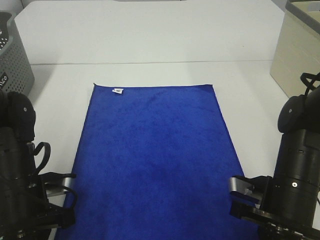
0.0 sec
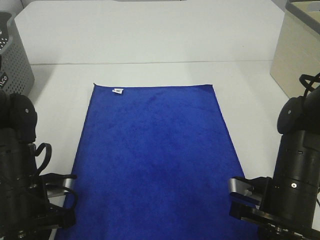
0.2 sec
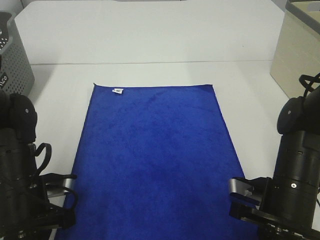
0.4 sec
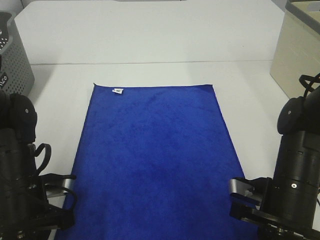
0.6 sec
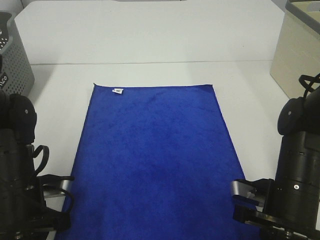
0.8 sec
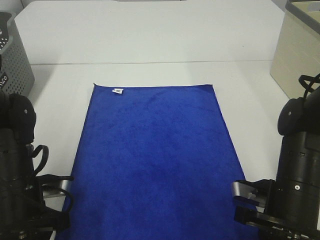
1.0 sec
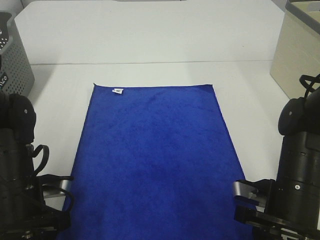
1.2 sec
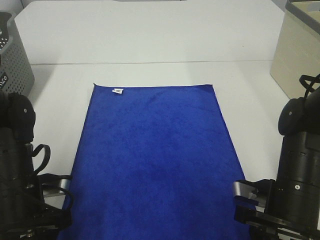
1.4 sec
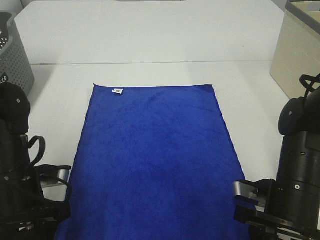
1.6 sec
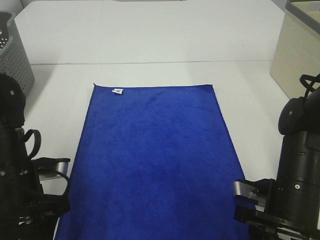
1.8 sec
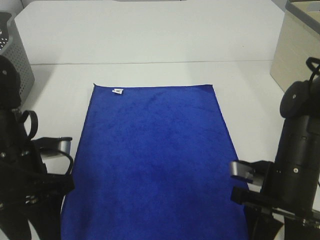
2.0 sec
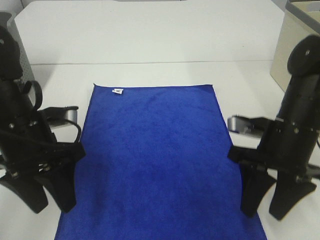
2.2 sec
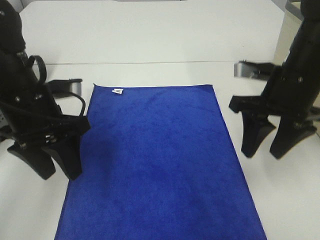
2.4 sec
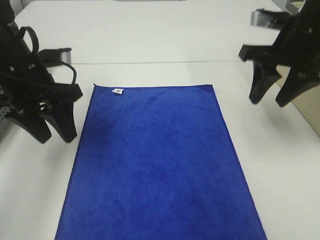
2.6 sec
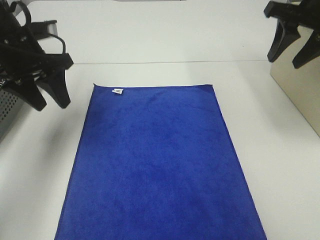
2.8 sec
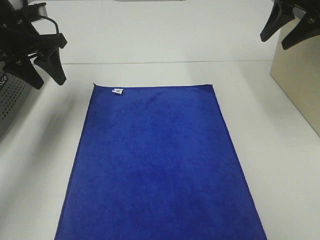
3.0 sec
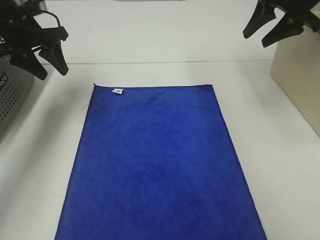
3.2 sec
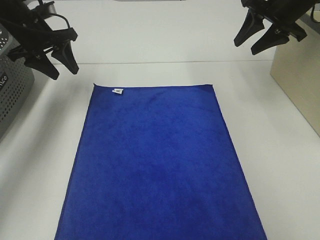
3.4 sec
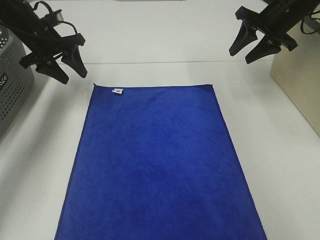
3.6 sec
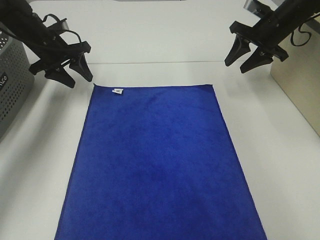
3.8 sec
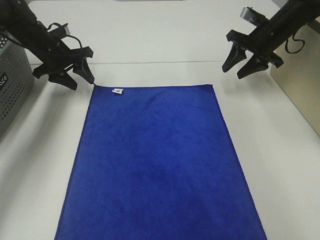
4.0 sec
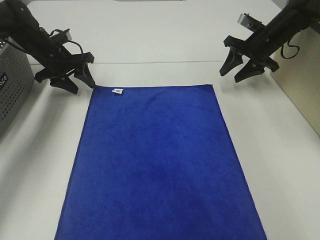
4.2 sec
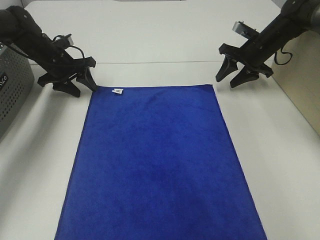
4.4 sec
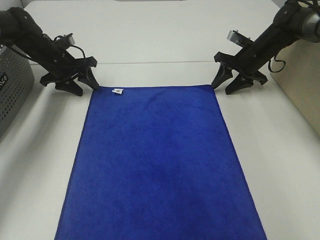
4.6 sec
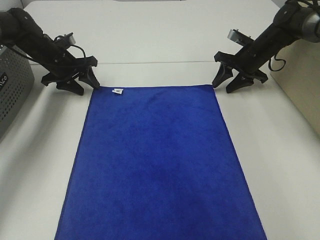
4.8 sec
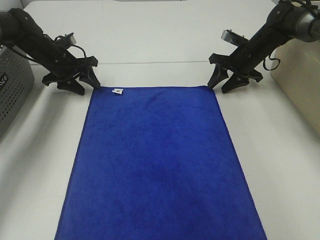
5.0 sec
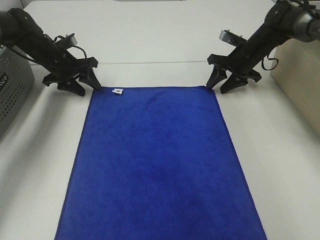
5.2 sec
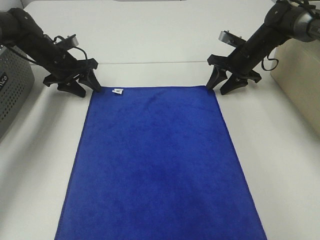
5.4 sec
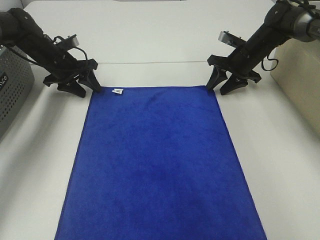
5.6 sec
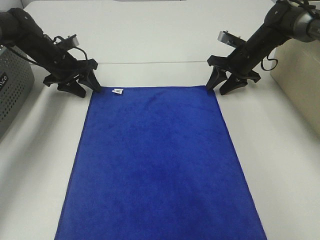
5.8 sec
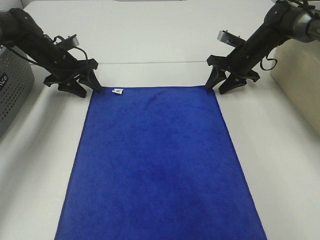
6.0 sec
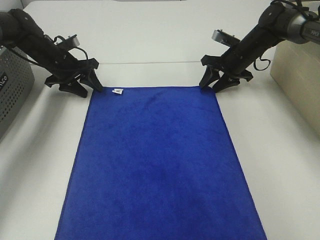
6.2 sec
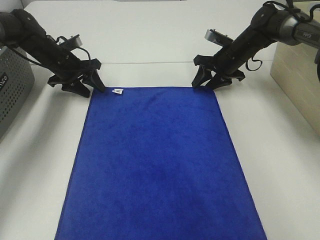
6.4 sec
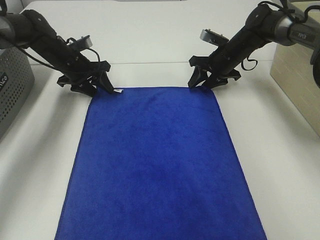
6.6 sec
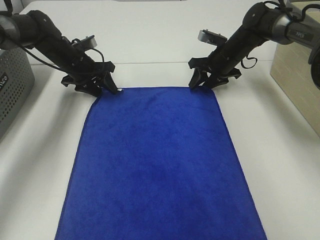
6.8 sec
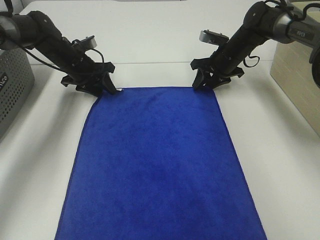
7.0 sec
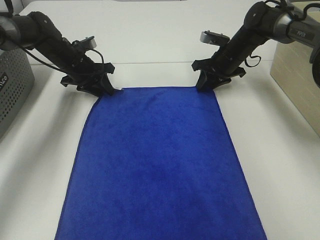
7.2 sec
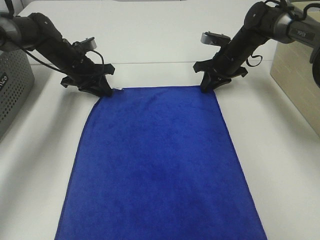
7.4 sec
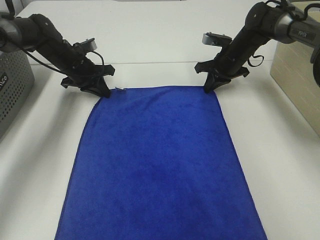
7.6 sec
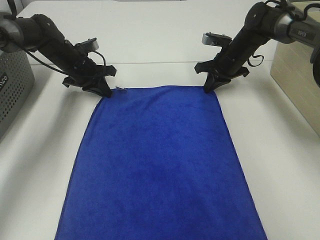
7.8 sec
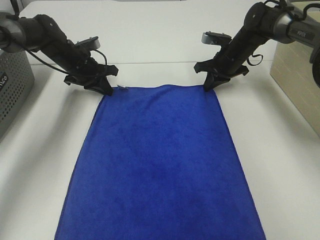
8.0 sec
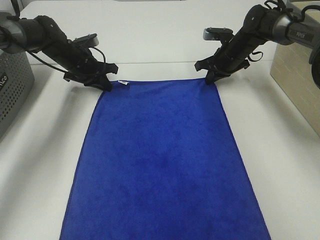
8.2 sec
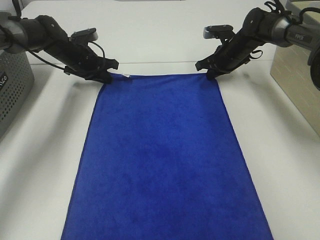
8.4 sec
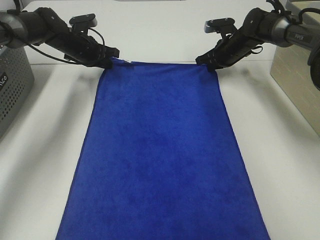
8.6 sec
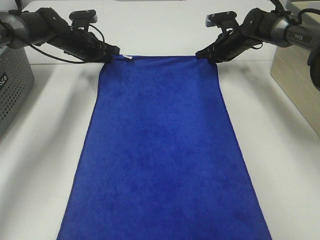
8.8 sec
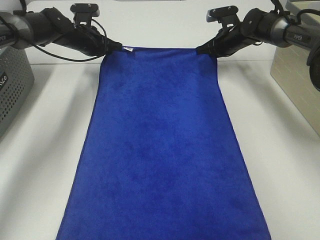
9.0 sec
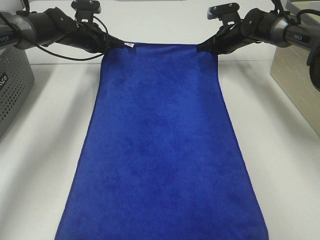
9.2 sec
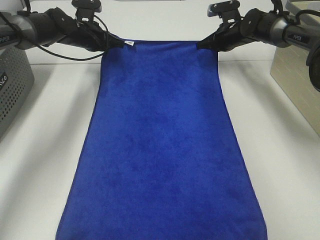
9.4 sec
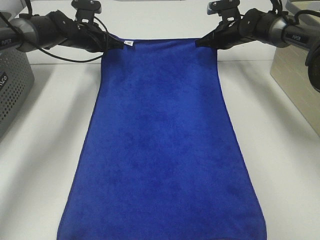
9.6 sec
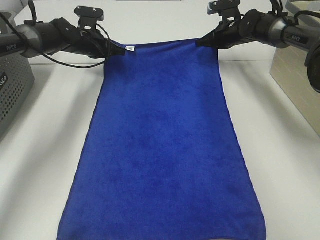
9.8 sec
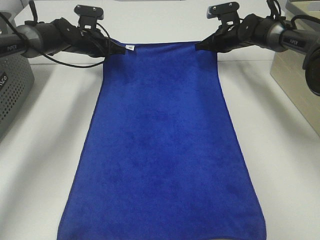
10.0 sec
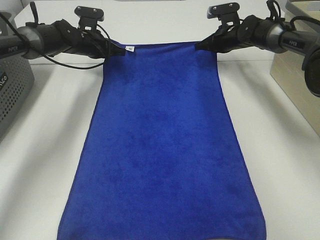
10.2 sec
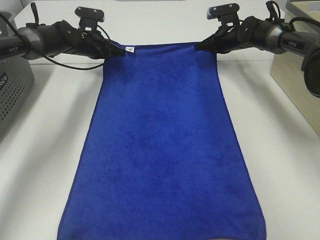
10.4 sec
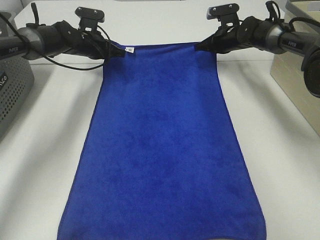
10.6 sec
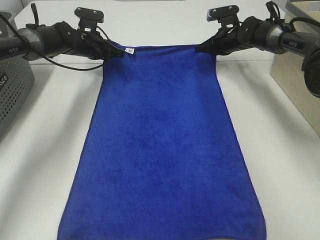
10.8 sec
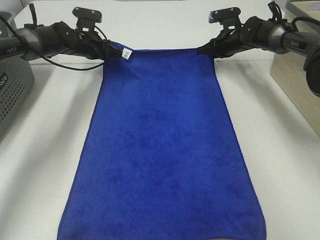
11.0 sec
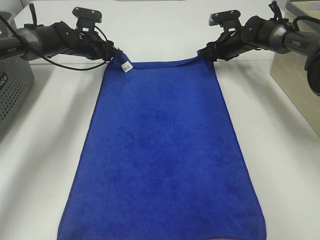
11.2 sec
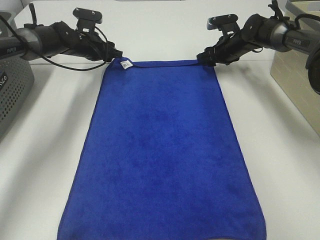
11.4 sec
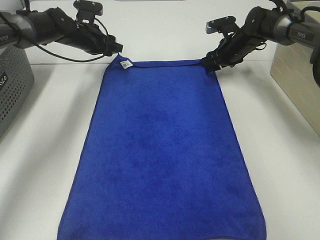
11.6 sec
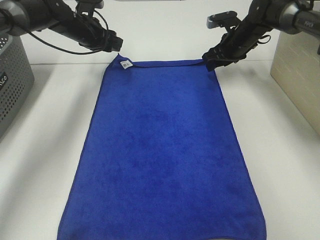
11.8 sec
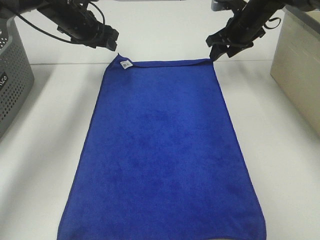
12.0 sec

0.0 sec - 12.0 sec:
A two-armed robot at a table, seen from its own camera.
Task of the whole recording: Remove the towel and place it.
Step, 0.0 sec - 4.6 sec: Left hand:adjust the blue towel.
Step, 0.0 sec - 4.6 sec: Right hand:adjust the blue towel.
0.0 sec - 1.6 sec: The left gripper opens. Meanwhile the right gripper opens.
1.6 sec - 3.0 sec: Both grippers travel together forward and upward, approximately 30 cm.
3.0 sec - 4.4 sec: The two grippers go about 20 cm downward and forward.
4.4 sec - 6.0 sec: The grippers move only a little.
6.0 sec - 7.6 sec: The right gripper closes up. Meanwhile the left gripper closes its fingers.
7.6 sec - 9.0 sec: The right gripper shifts by approximately 5 cm. The left gripper moves approximately 5 cm.
9.0 sec - 10.4 sec: The grippers stay close to where they were, moving slightly.
10.4 sec - 12.0 sec: The right gripper travels upward and backward by some 10 cm, and opens. Meanwhile the left gripper moves upward, about 10 cm, and opens.

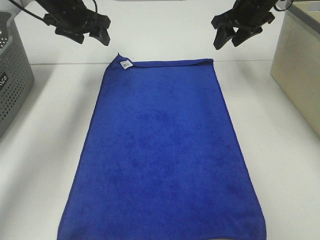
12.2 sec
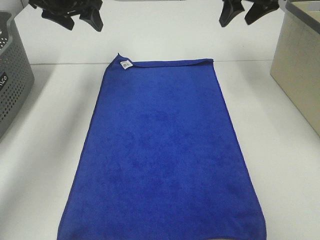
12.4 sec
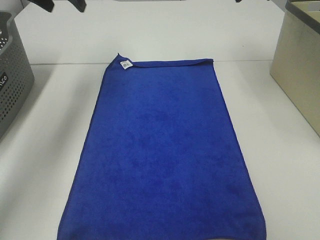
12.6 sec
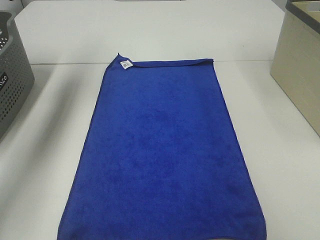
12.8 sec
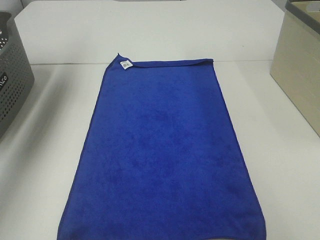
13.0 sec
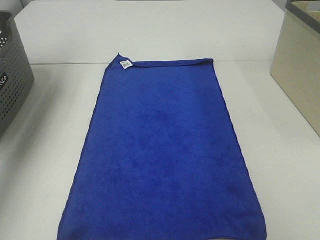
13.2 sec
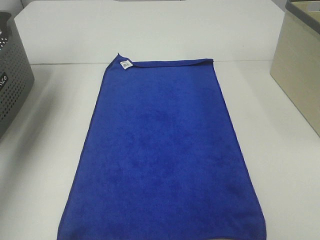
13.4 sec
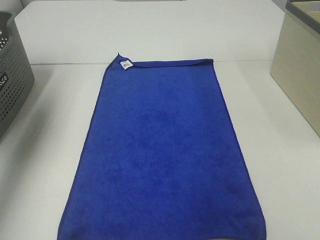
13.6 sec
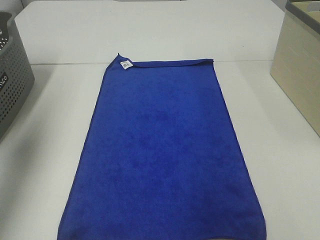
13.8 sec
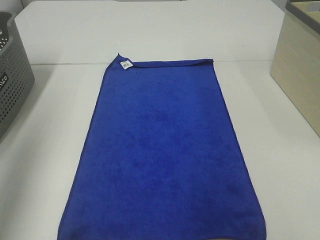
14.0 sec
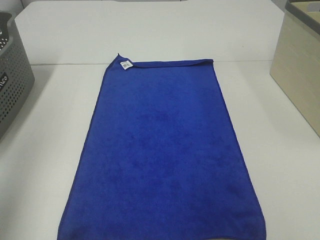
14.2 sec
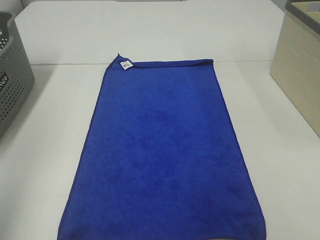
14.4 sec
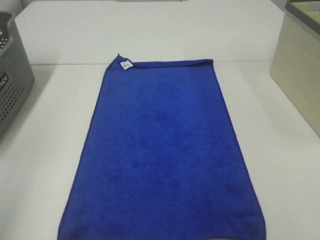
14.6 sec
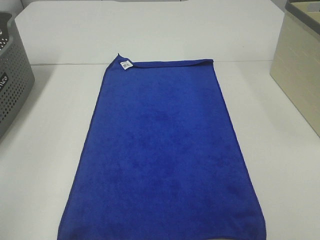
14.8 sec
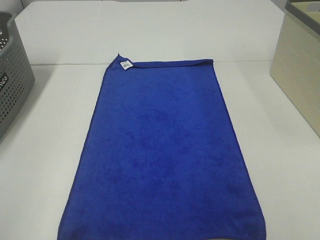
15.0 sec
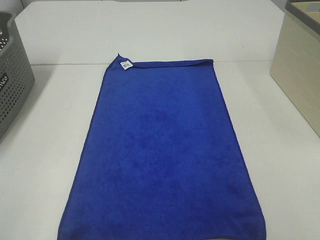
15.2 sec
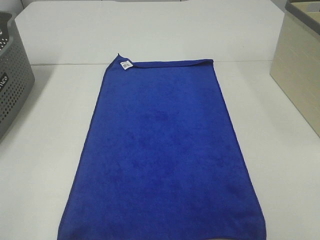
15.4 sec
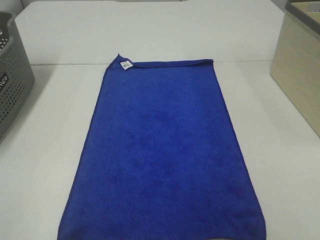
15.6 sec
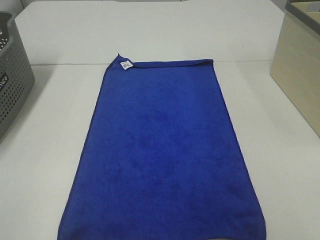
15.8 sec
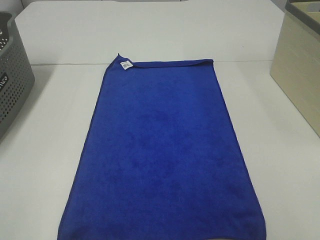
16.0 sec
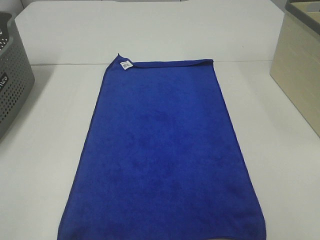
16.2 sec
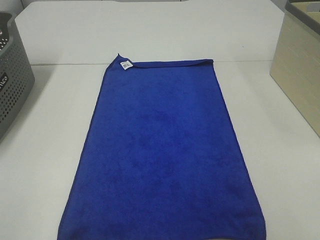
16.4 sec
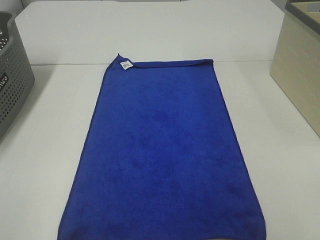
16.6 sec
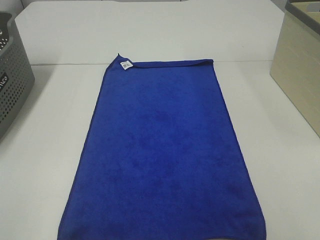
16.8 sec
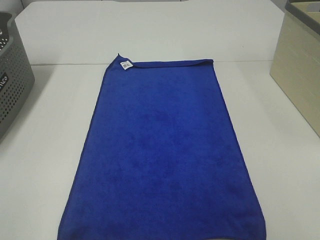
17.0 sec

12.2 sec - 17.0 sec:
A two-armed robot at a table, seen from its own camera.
Task of the whole recording: Remove the towel and place it.
12.2 sec - 13.8 sec: The right gripper heads backward and upward, covering about 35 cm. Meanwhile the left gripper heads backward, upward and to the left, covering approximately 35 cm.
13.8 sec - 15.4 sec: The left gripper goes approximately 25 cm backward.

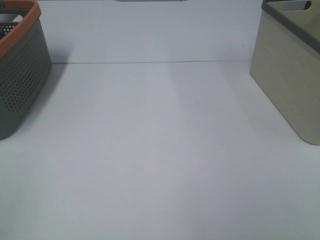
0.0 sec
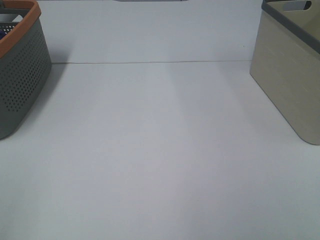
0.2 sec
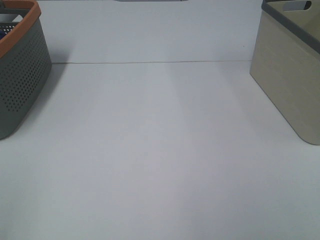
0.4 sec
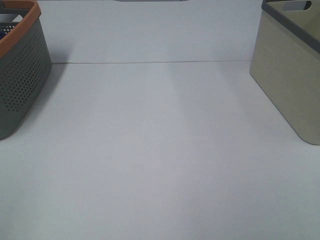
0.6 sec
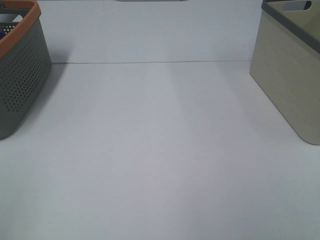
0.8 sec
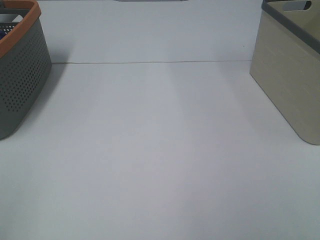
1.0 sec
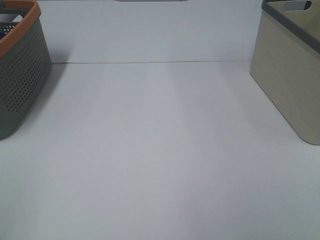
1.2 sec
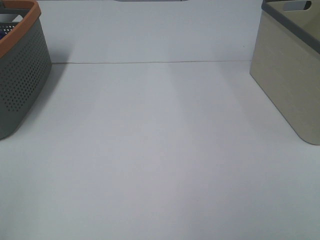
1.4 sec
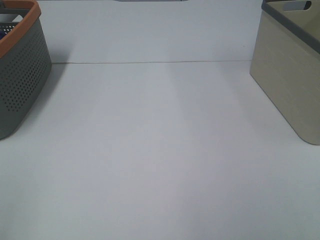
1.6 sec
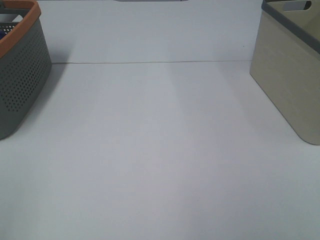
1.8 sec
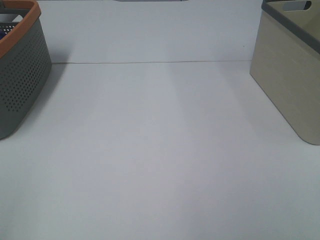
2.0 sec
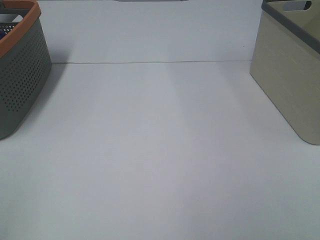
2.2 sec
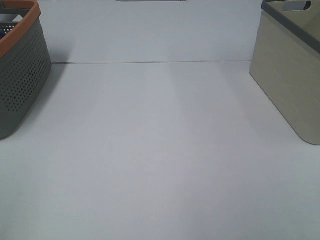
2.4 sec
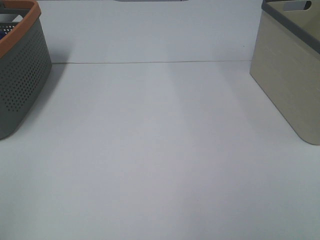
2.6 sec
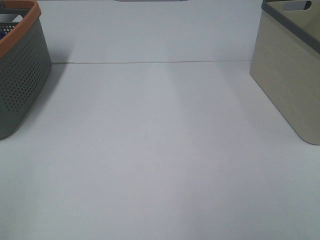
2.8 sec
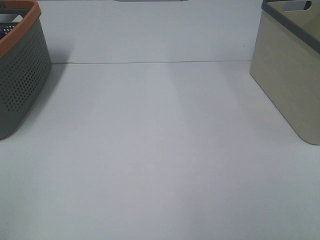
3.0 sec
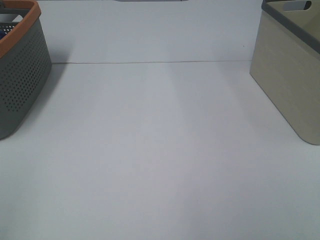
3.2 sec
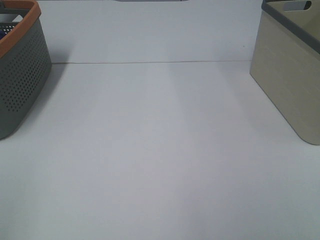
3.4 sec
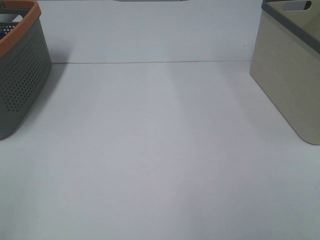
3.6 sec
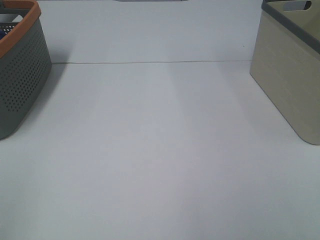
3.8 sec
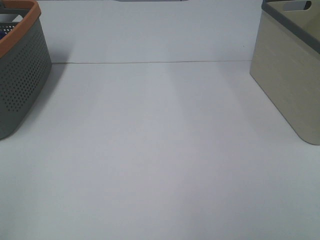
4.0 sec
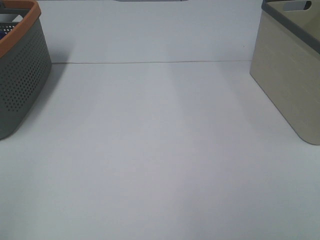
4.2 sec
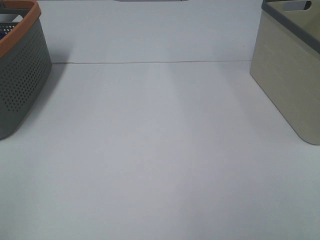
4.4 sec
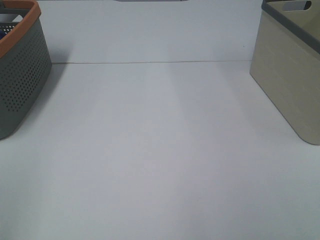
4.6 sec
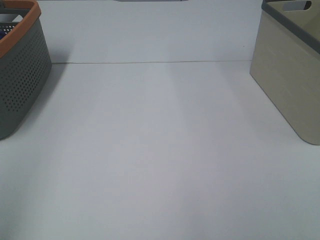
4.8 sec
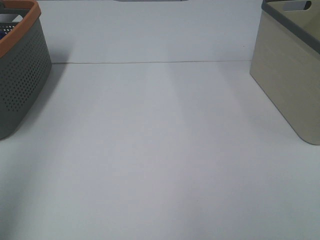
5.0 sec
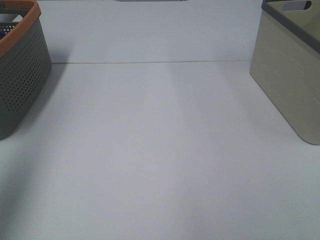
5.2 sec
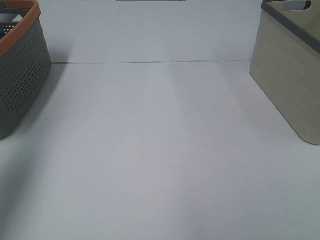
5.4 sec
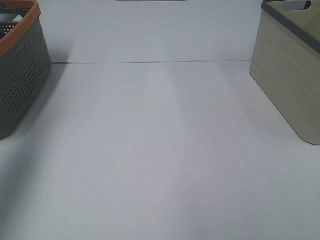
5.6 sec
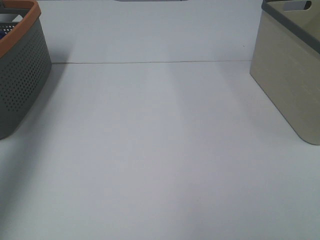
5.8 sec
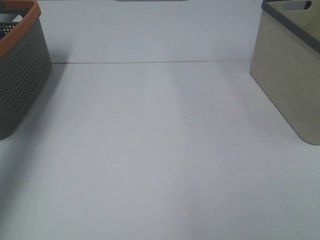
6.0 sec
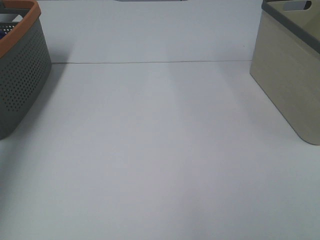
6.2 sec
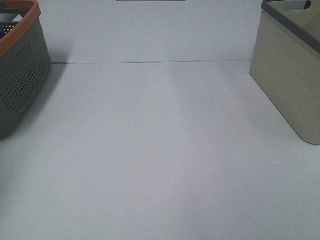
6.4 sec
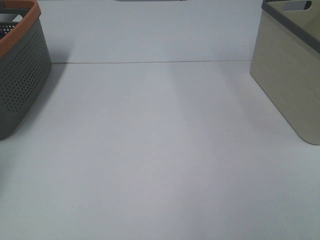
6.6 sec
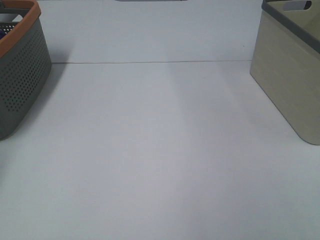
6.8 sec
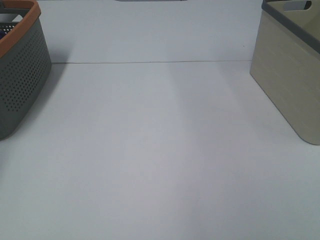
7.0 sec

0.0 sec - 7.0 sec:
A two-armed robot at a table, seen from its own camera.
Task of the whole recording: Remove the towel and place it.
0.0 sec - 1.4 sec: Both grippers stay put.
2.8 sec - 4.2 sec: Neither gripper changes place.
4.2 sec - 5.6 sec: The left gripper travels forward and upward by some 25 cm.
5.6 sec - 7.0 sec: The left gripper travels forward, to the left and downward by roughly 30 cm.
